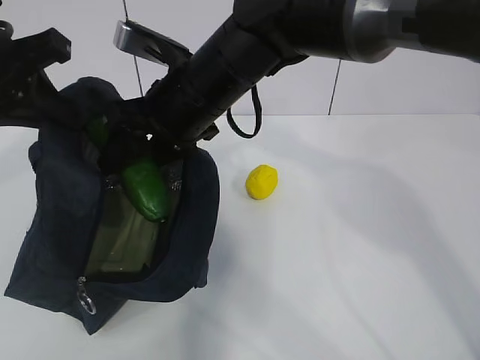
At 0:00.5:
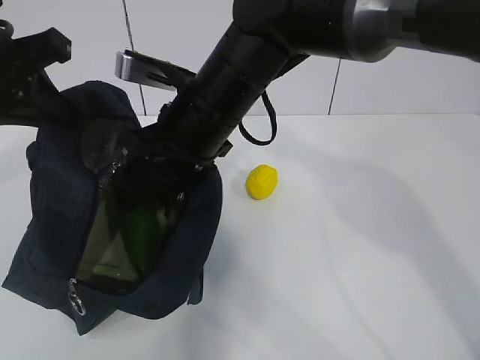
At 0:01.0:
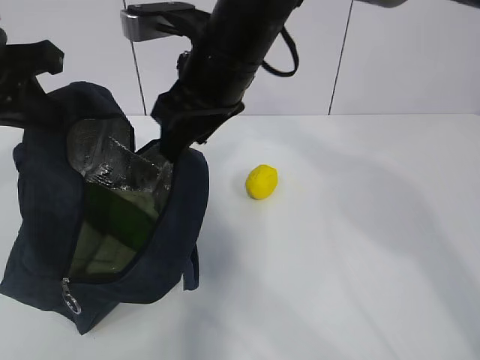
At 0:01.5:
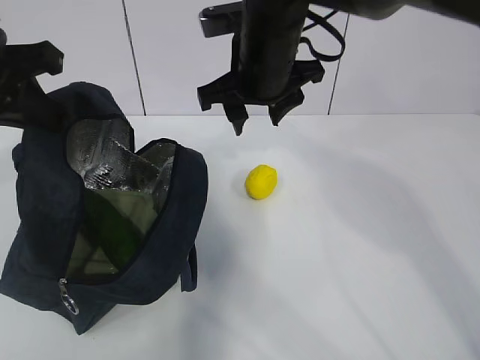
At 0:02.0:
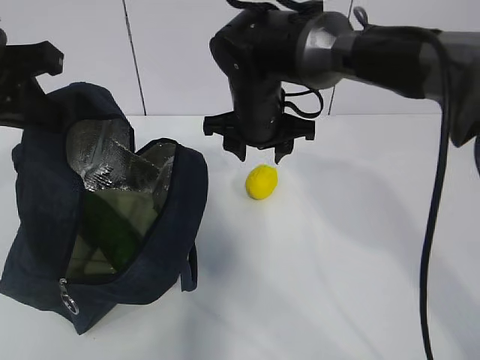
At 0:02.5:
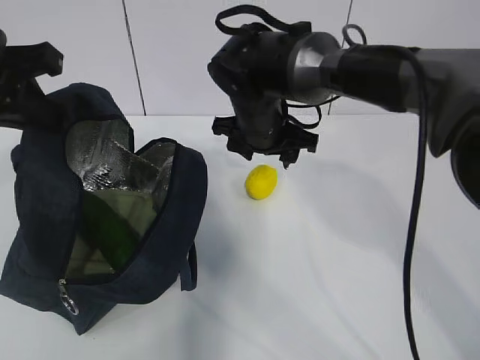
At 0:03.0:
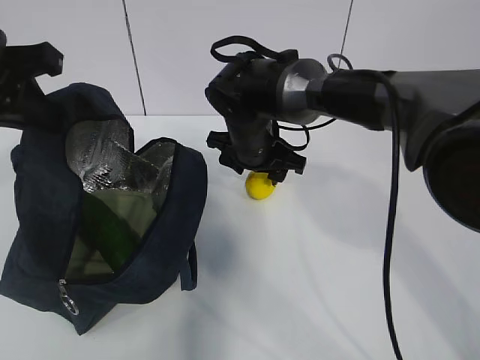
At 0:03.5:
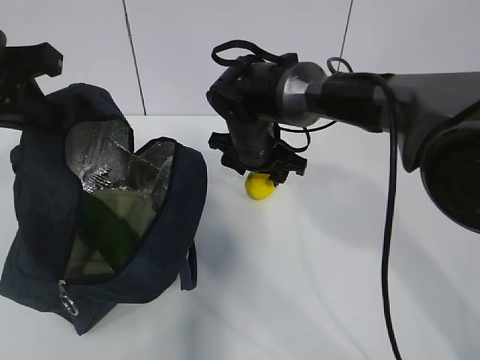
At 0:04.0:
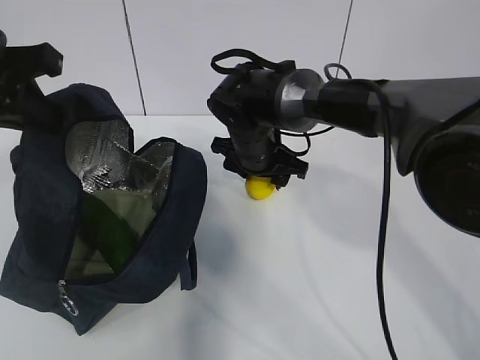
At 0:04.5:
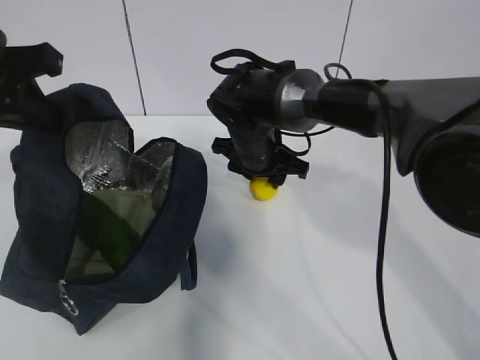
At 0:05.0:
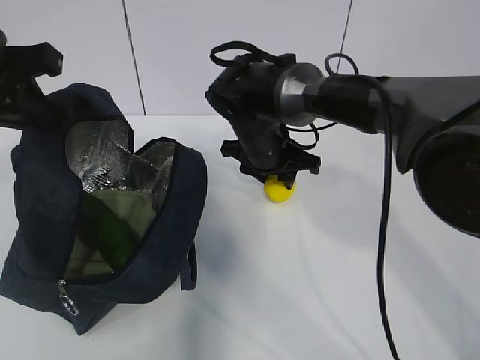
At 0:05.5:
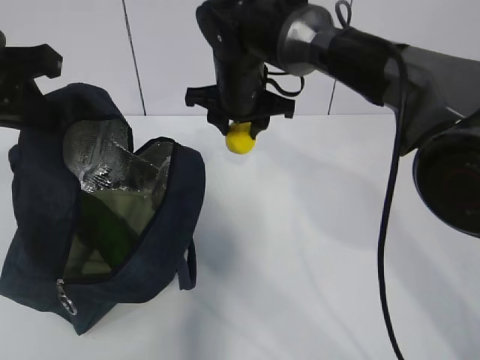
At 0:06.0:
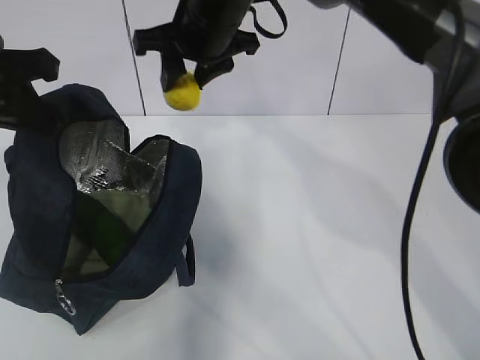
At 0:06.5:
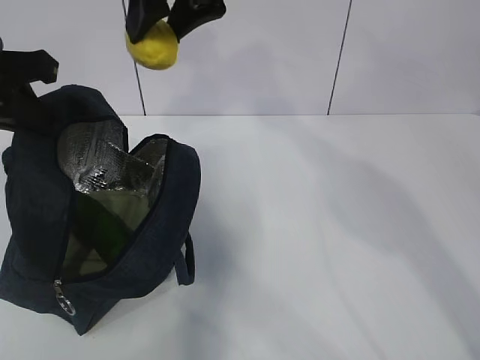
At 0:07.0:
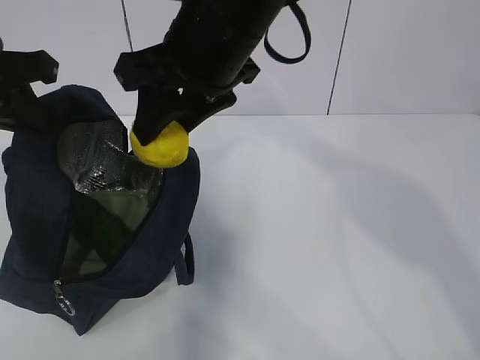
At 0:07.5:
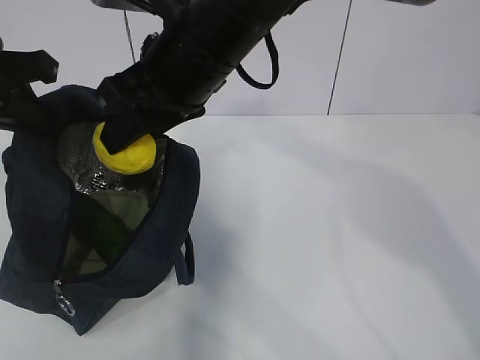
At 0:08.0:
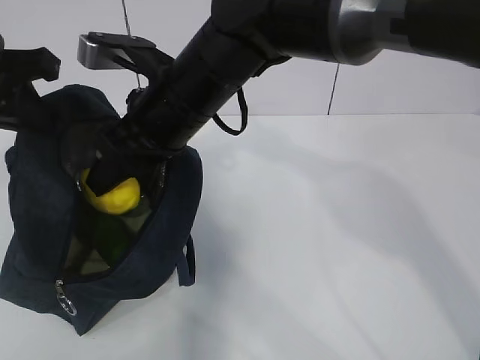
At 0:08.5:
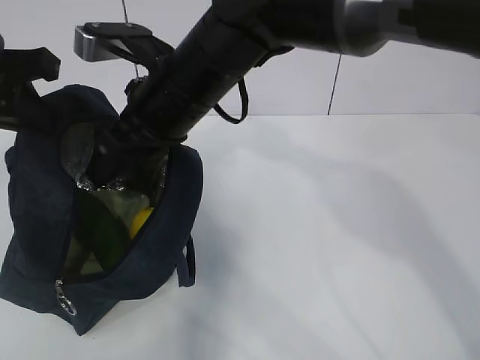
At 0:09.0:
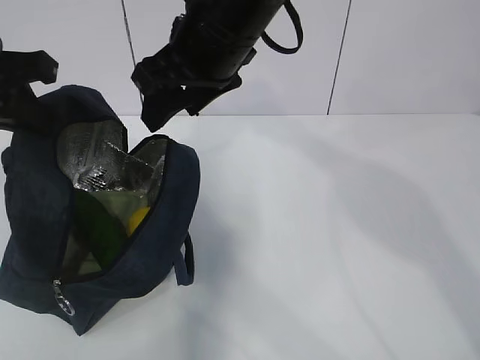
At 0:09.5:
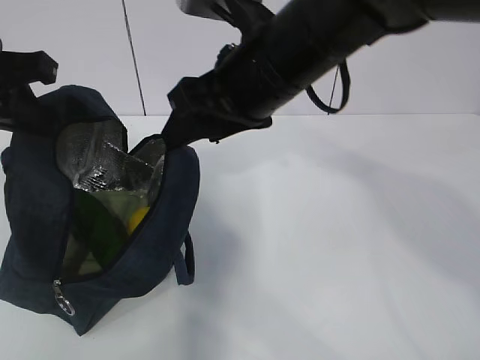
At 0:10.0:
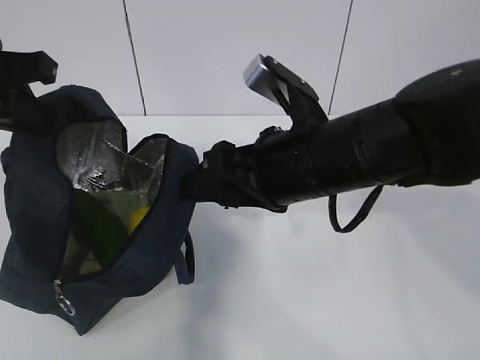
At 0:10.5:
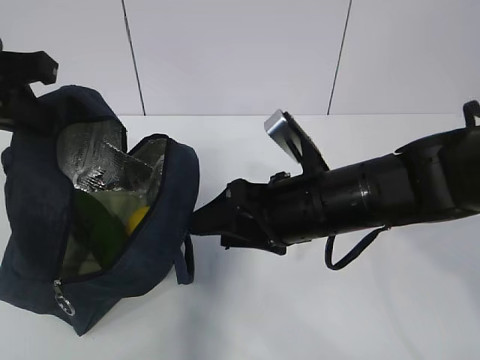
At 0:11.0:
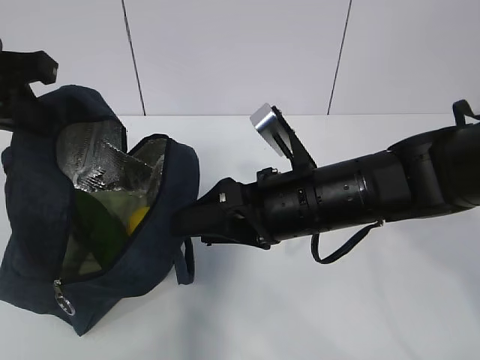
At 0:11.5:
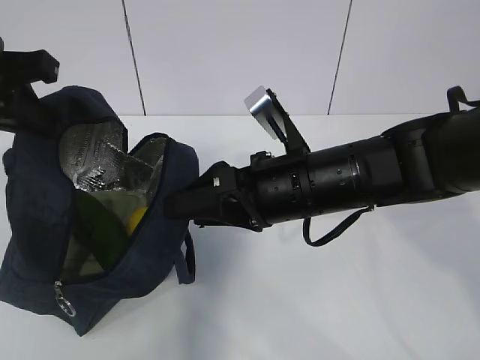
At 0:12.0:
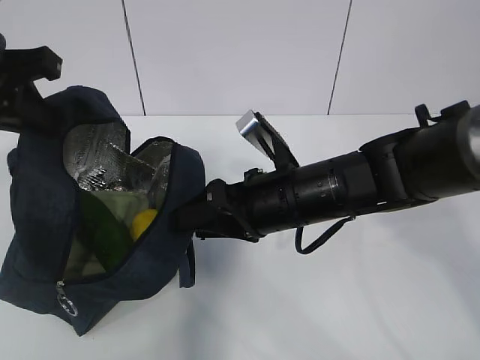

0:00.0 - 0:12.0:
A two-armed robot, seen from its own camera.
Step, 0:00.5 - 0:03.0: Grab the lunch bag with your right hand.
Step, 0:04.0 - 0:07.5: Move the lunch bag to the right.
0:00.0 - 0:02.0: The right gripper heads forward, to the right and downward, covering some 10 cm.
0:02.0 - 0:04.0: The right gripper moves downward, approximately 5 cm.
0:04.0 - 0:06.0: The right gripper travels upward by some 15 cm.
0:06.0 - 0:08.0: The right gripper moves backward, about 10 cm.
0:08.0 - 0:10.0: The right gripper shifts roughly 15 cm to the right and backward.
0:10.0 - 0:12.0: The right gripper heads downward, covering about 10 cm.

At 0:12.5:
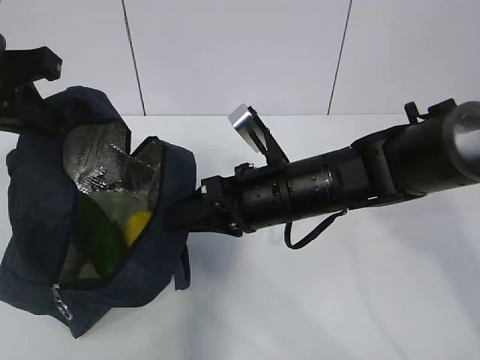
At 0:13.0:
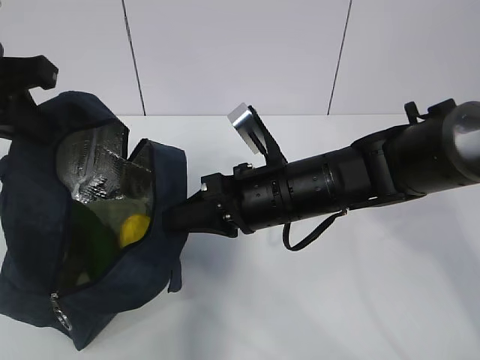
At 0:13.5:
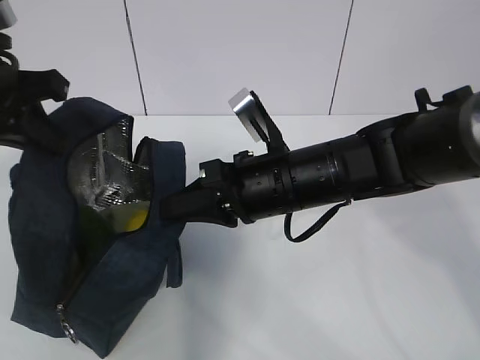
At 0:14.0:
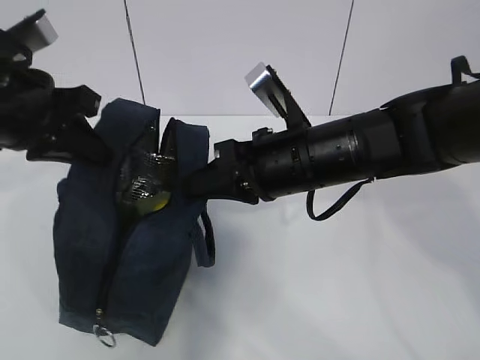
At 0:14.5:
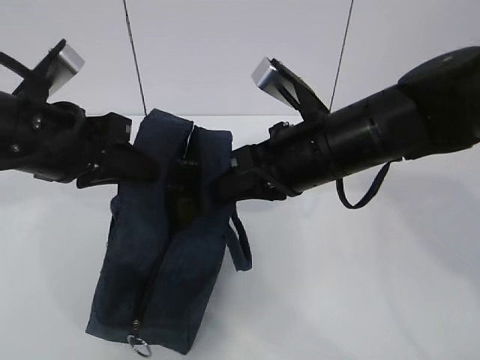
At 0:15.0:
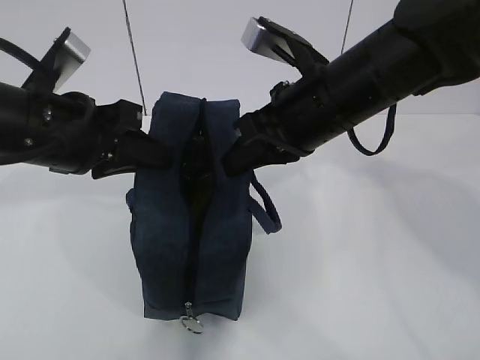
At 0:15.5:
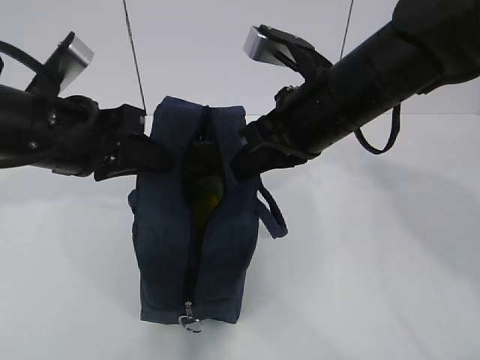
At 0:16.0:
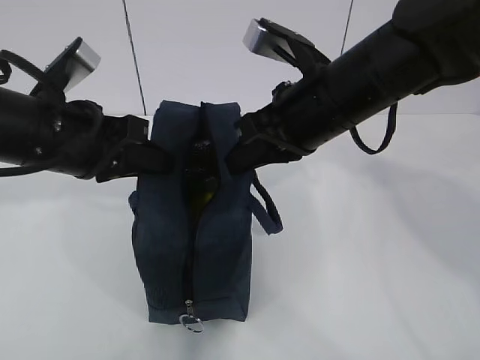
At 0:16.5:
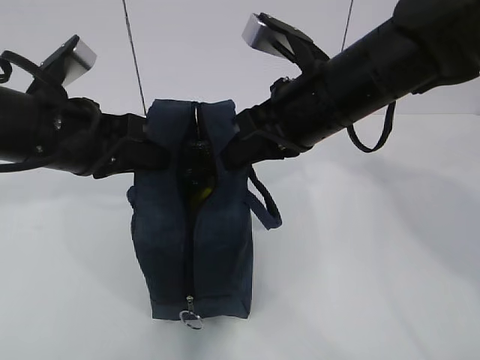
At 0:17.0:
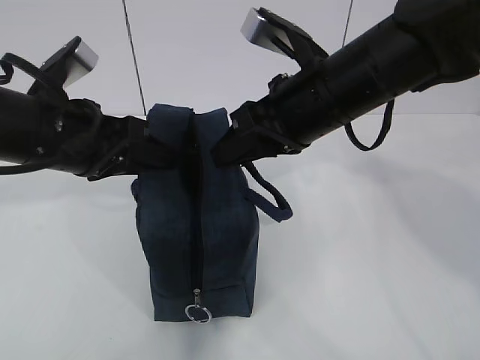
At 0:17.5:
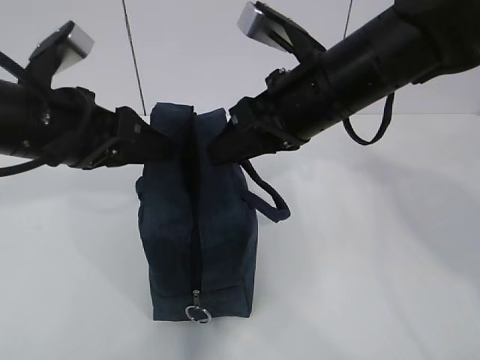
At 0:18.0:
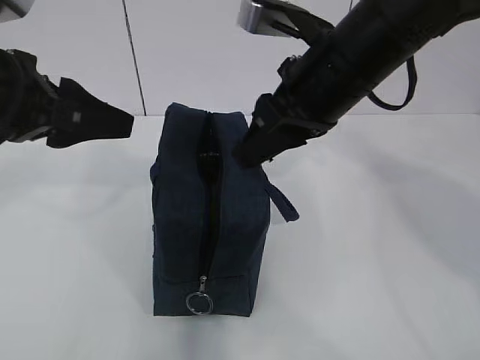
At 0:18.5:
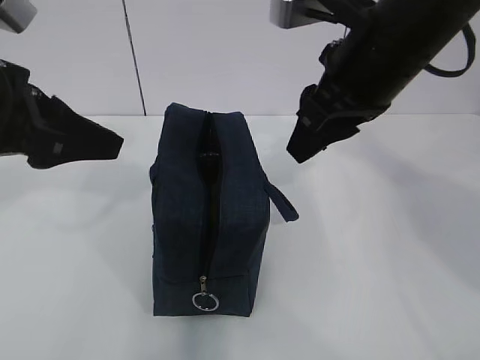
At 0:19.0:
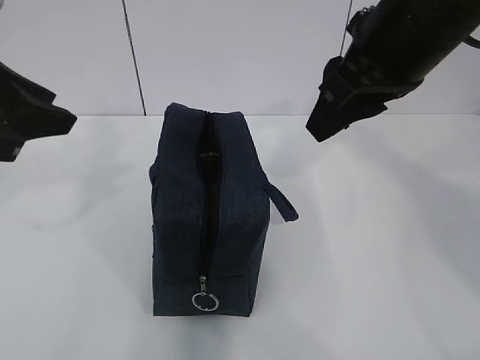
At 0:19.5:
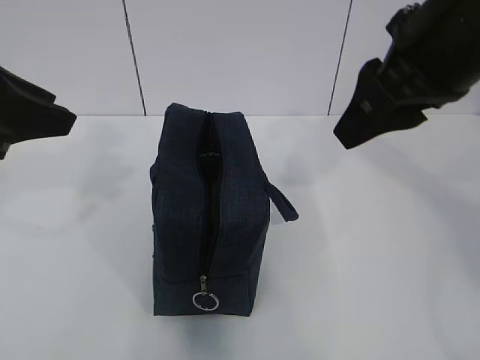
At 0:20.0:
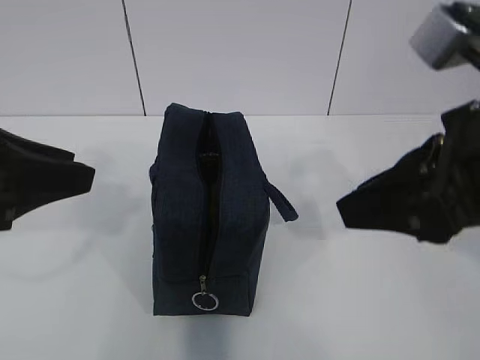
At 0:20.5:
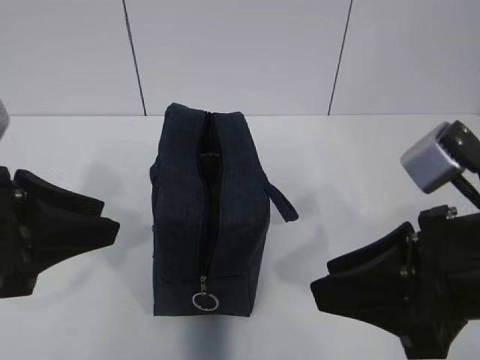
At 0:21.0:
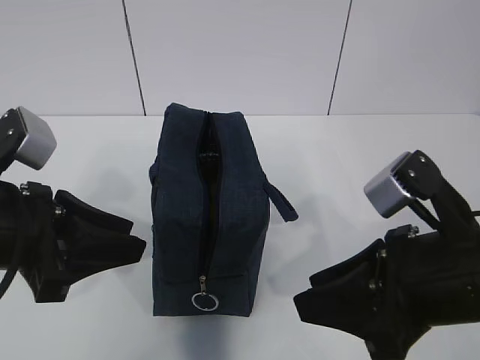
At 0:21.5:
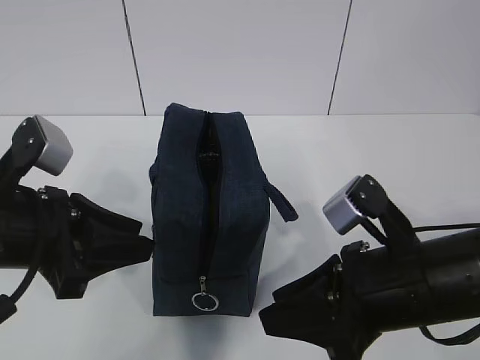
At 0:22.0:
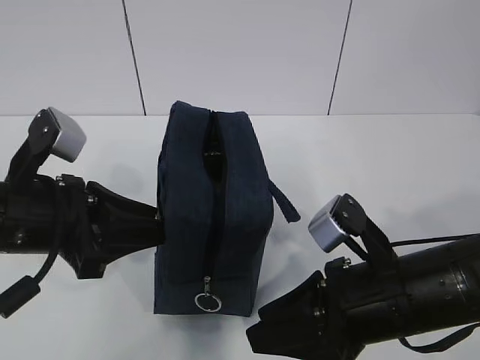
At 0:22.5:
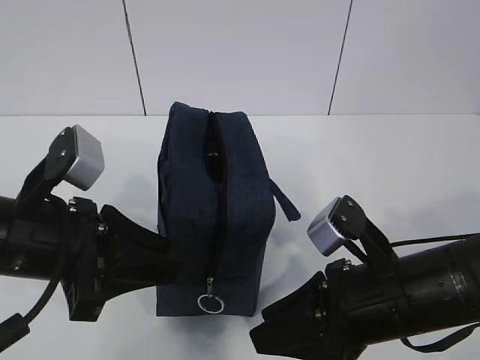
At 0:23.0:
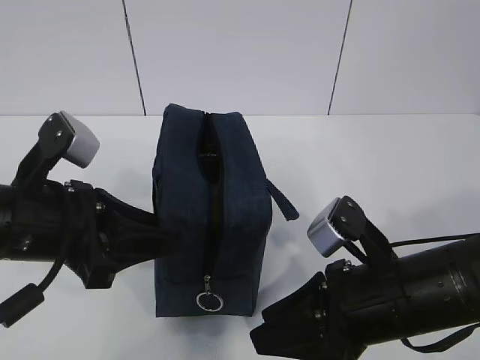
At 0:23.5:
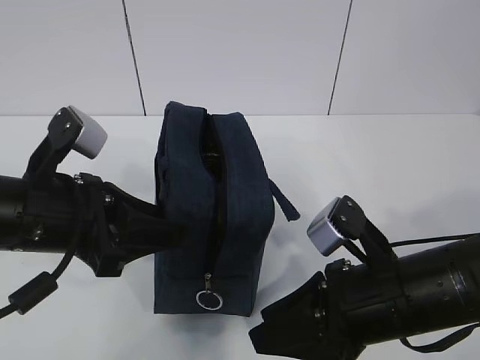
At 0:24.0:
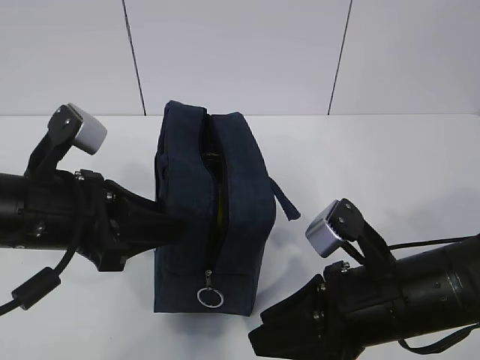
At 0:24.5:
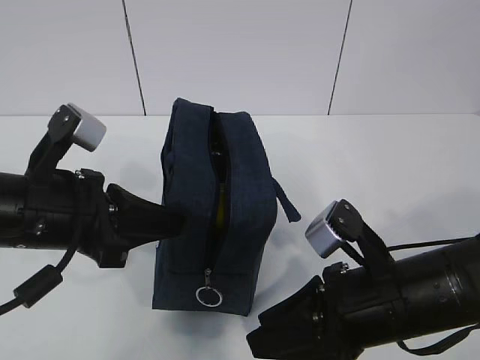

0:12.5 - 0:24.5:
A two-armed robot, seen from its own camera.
0:12.5 - 0:14.5: The right gripper shifts about 5 cm upward, and closes up. Meanwhile the left gripper moves downward, roughly 5 cm.
0:16.5 - 0:18.5: Both grippers move upward, approximately 5 cm. The left gripper opens up, while the right gripper opens up.
0:18.5 - 0:20.5: The right gripper is displaced backward and downward by about 15 cm. Meanwhile the left gripper goes approximately 5 cm backward.
0:20.5 - 0:22.5: The left gripper heads downward, covering roughly 5 cm. Meanwhile the right gripper is displaced downward by roughly 10 cm.
0:22.5 - 0:24.5: The left gripper closes its fingers.

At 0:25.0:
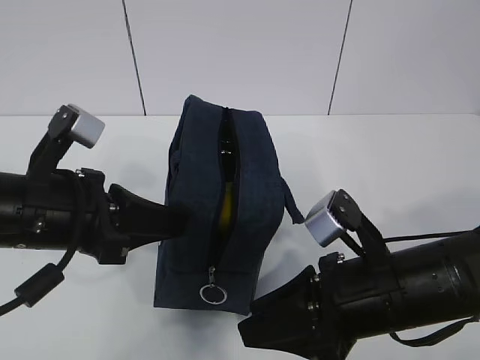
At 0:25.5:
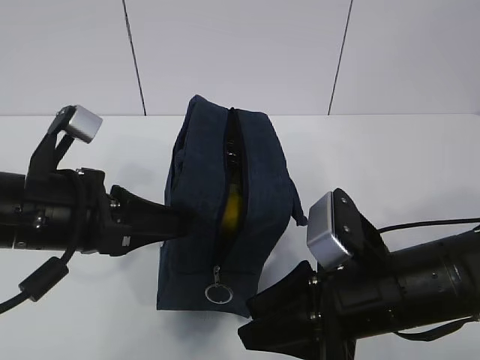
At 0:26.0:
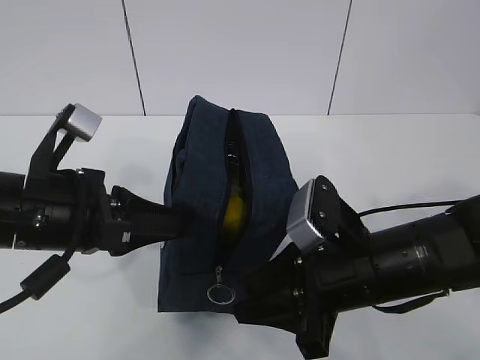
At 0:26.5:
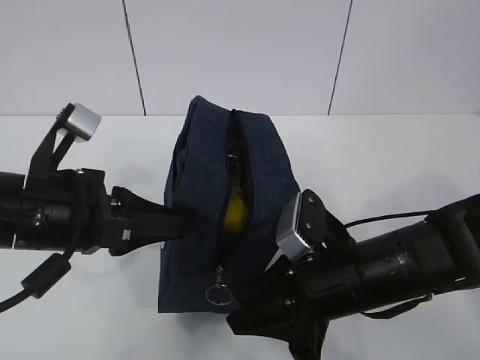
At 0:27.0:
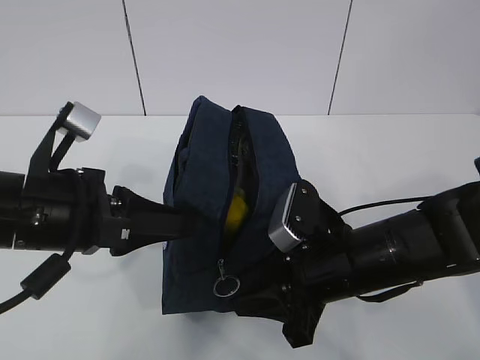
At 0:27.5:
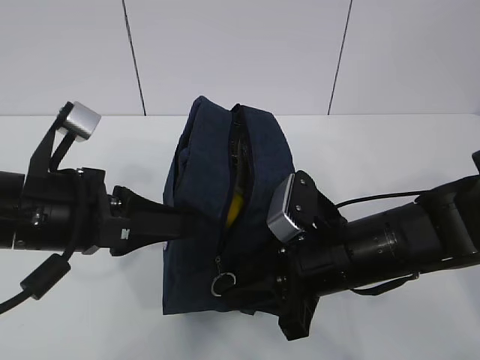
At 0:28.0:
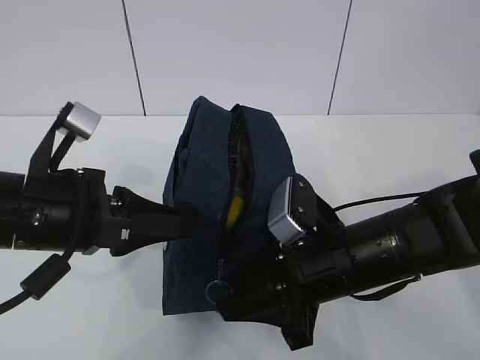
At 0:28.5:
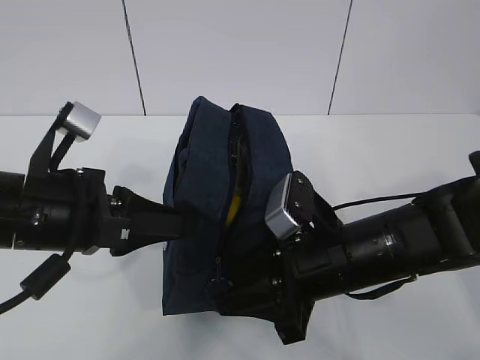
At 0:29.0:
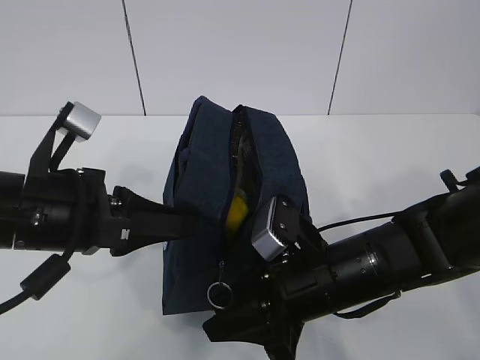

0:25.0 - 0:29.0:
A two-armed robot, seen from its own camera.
0:25.0 - 0:27.0: The right gripper shifts by roughly 5 cm.
0:27.0 - 0:29.0: There are only small adjustments of the grippers.
